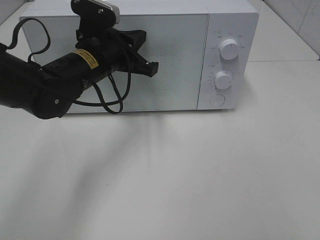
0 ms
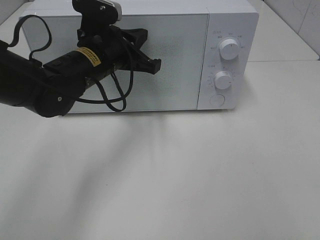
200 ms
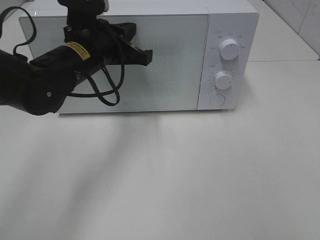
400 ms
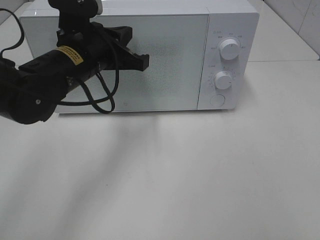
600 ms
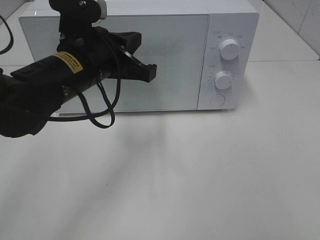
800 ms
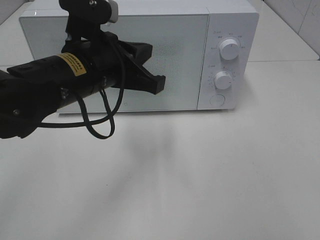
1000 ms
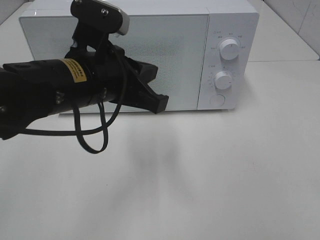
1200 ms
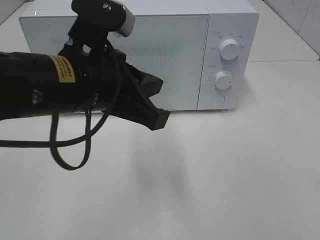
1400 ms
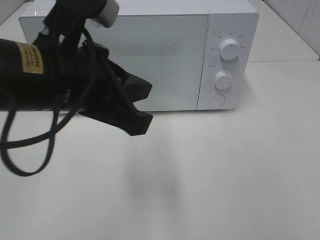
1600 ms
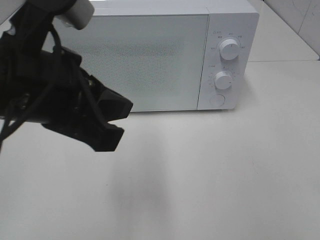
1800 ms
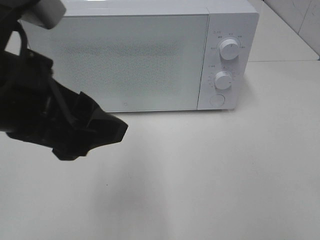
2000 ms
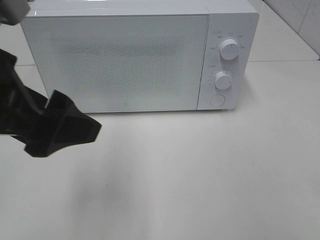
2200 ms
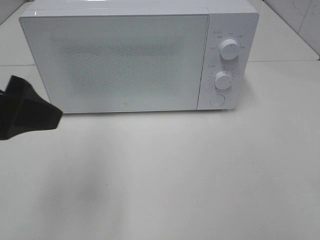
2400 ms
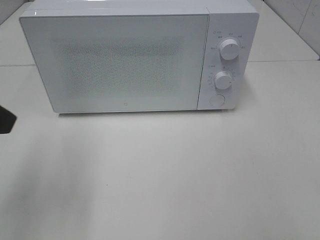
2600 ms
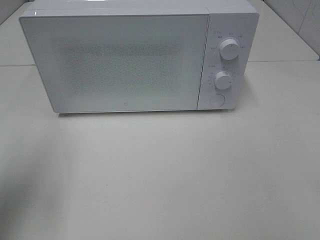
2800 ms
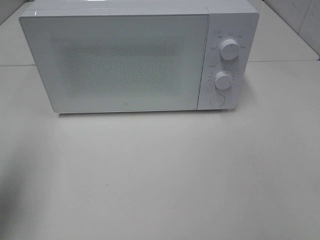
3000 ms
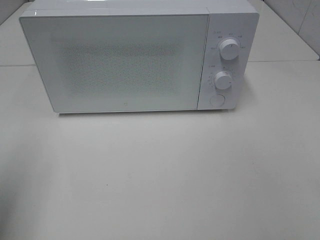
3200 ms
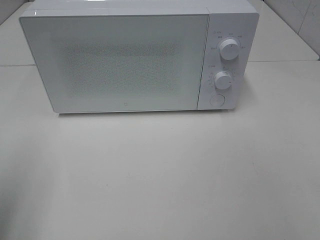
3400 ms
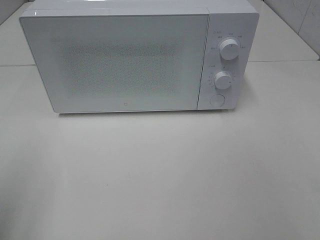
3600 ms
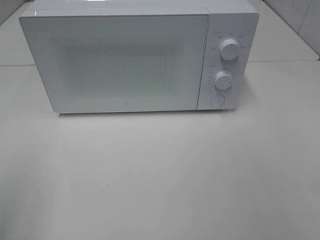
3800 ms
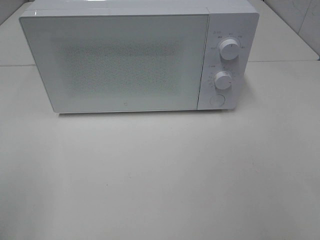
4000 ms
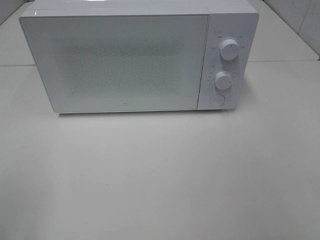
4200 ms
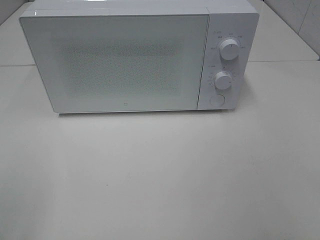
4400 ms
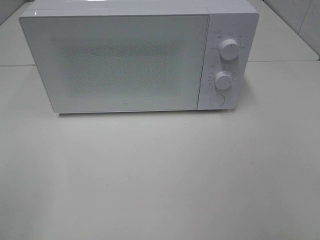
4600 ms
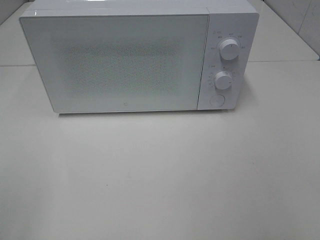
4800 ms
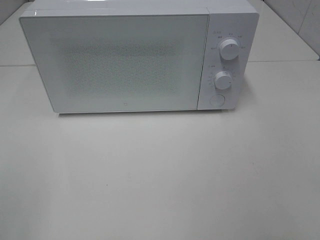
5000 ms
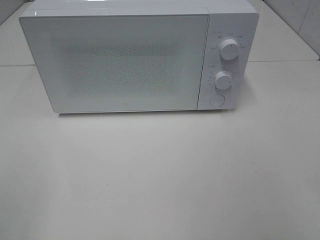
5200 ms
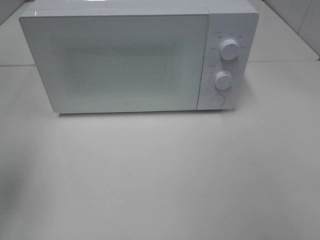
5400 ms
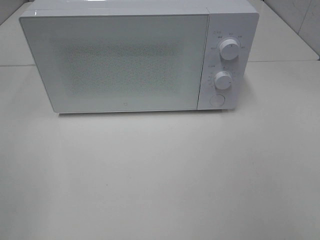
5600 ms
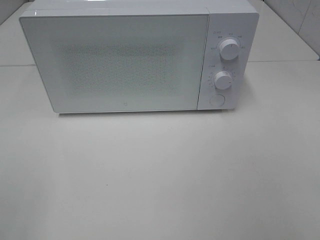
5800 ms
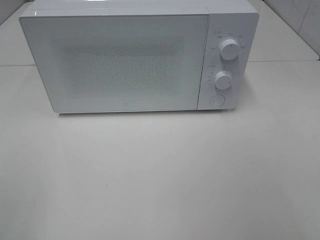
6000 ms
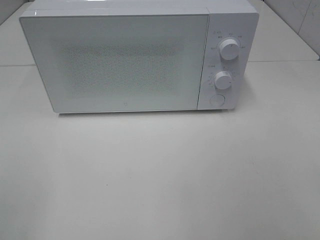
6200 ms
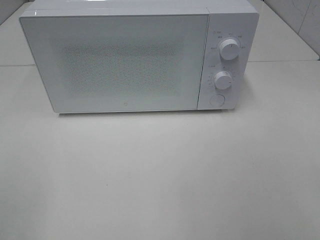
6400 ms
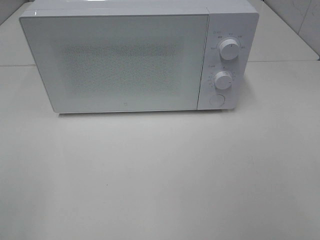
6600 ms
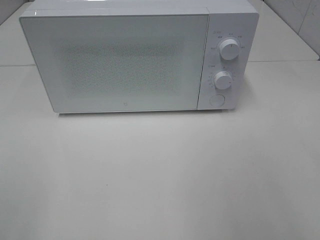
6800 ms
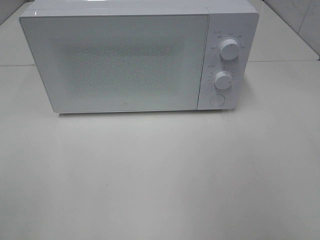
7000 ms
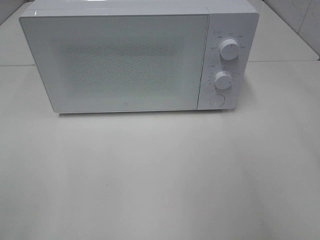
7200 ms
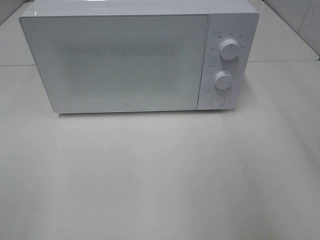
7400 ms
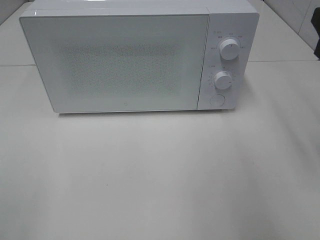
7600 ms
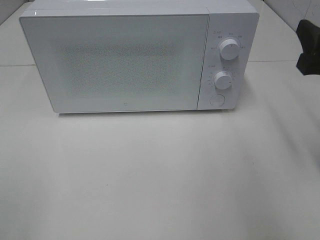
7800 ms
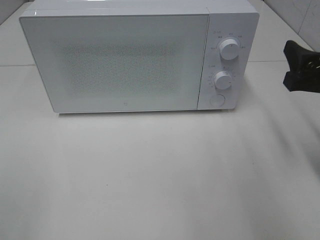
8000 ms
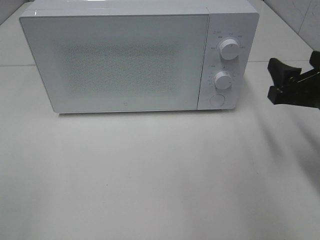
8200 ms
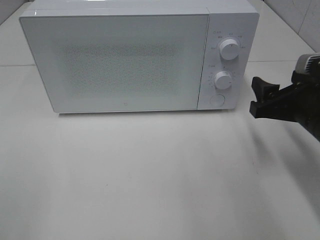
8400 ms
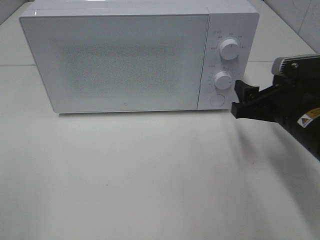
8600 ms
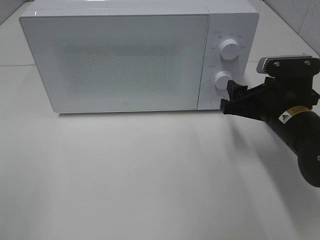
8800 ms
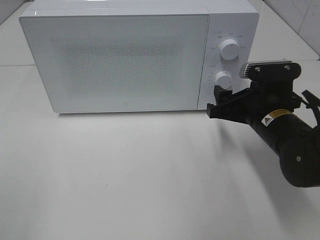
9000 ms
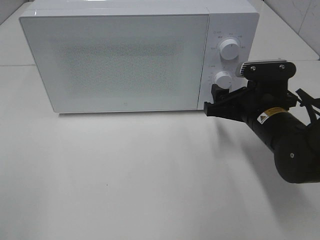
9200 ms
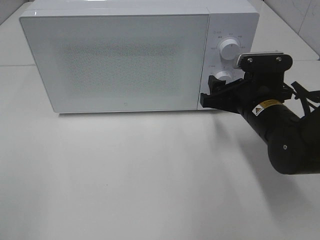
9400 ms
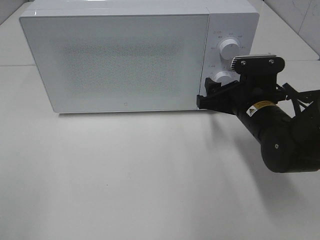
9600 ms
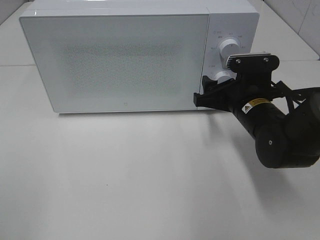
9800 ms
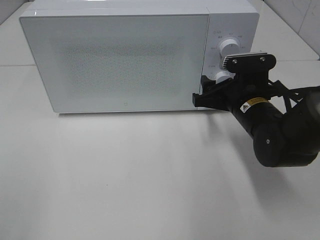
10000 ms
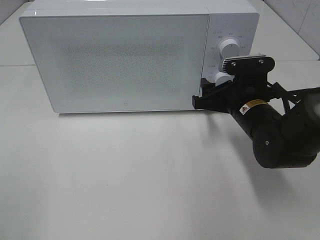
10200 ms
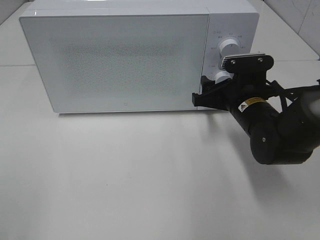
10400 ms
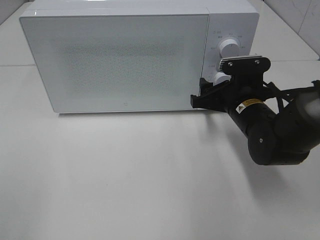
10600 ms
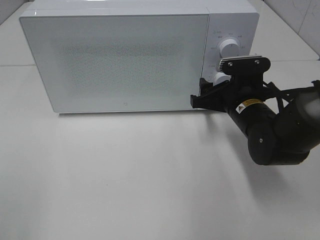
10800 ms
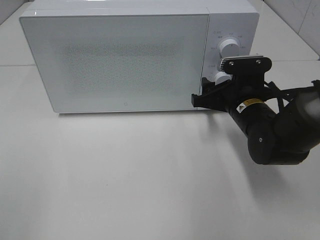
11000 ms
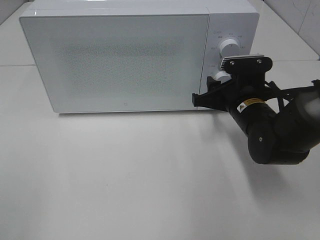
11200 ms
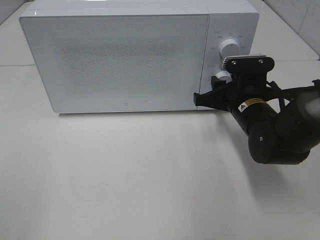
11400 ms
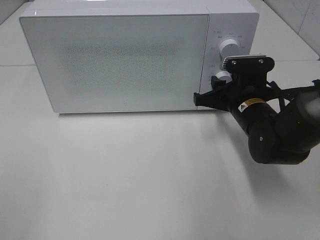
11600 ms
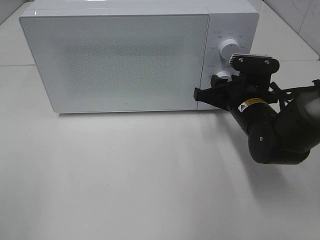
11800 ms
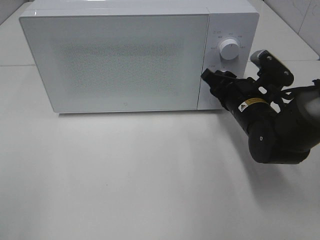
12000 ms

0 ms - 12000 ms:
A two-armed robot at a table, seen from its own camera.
Task of the whole recording: Heat the burger.
0 ms - 1600 ms: The left gripper goes about 20 cm backward and upward.
1600 ms - 3000 ms: The left gripper heads to the left, covering approximately 20 cm, and opens its fingers.
3000 ms - 4400 ms: The left gripper shifts some 15 cm backward.
4400 ms - 6000 ms: The two grippers keep their place.
6000 ms - 7600 ms: The right gripper heads forward, covering approximately 20 cm.
7600 ms - 9000 ms: The right gripper goes some 20 cm downward, to the left and forward.
9000 ms - 10400 ms: There are only small adjustments of the grippers.

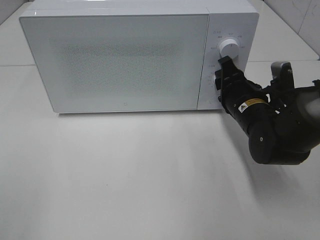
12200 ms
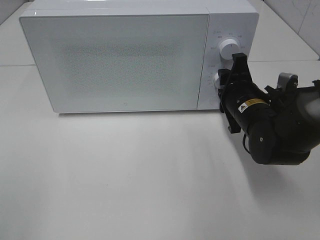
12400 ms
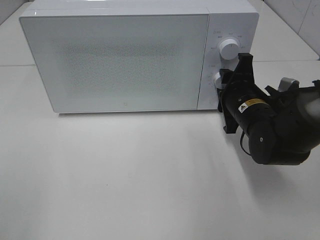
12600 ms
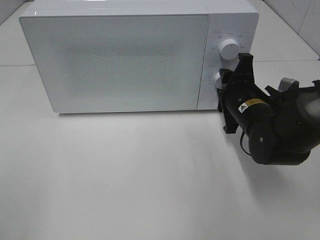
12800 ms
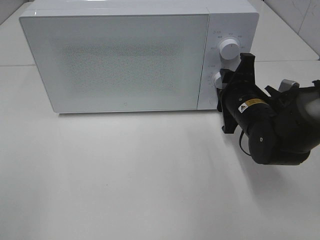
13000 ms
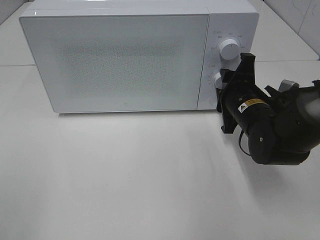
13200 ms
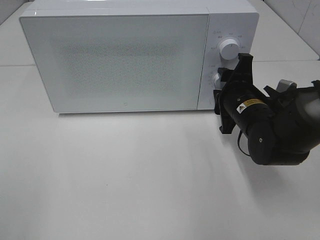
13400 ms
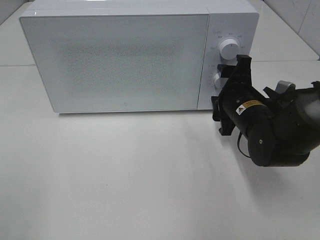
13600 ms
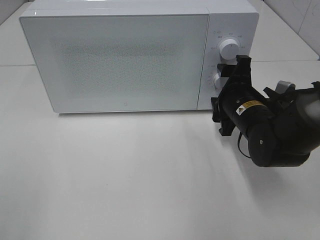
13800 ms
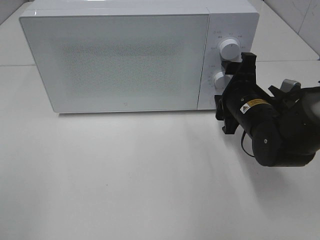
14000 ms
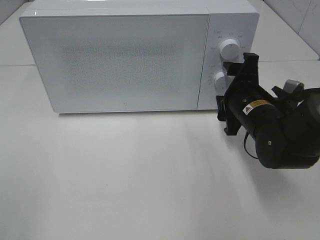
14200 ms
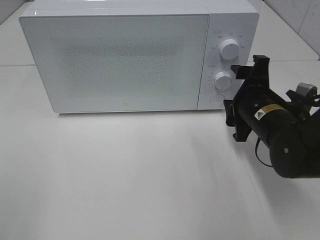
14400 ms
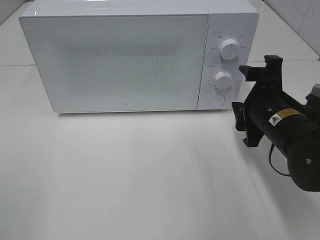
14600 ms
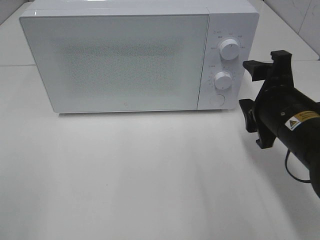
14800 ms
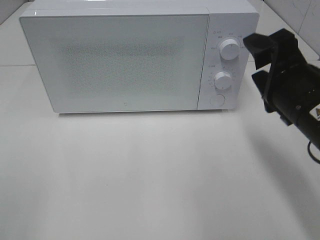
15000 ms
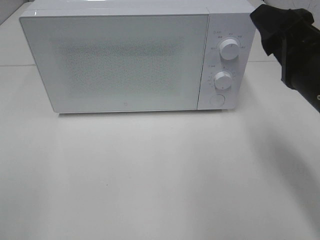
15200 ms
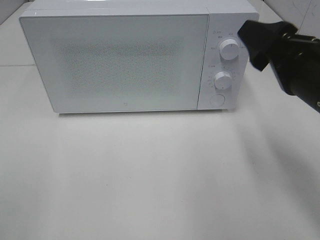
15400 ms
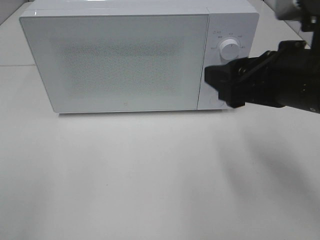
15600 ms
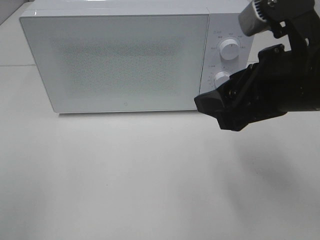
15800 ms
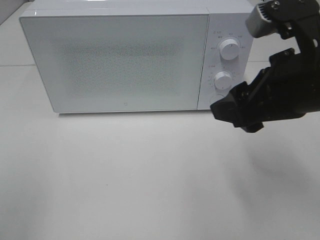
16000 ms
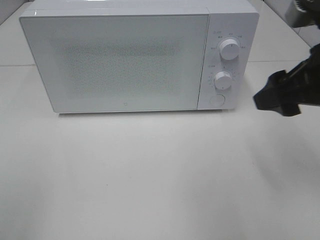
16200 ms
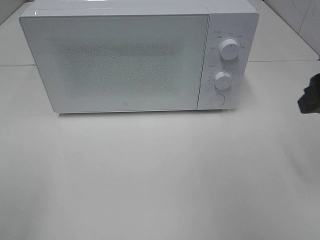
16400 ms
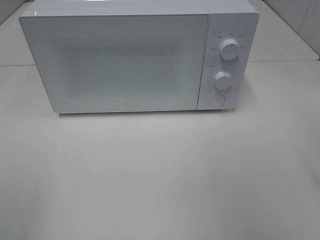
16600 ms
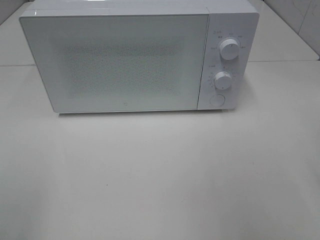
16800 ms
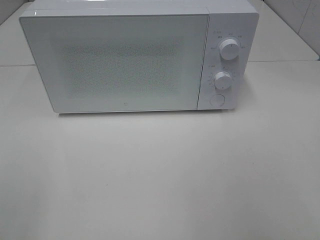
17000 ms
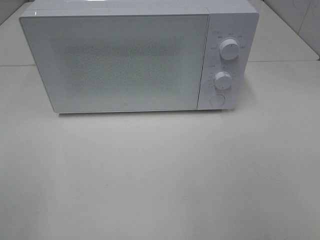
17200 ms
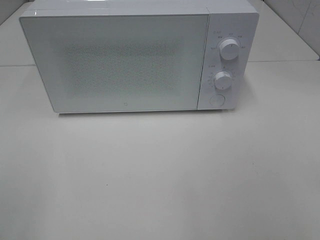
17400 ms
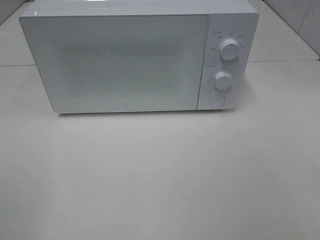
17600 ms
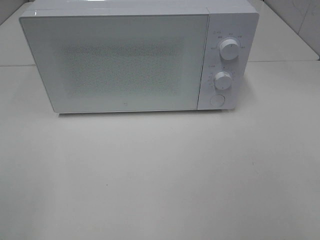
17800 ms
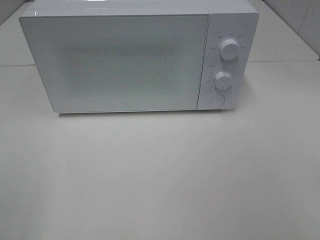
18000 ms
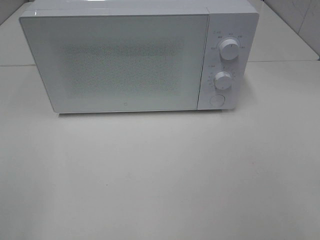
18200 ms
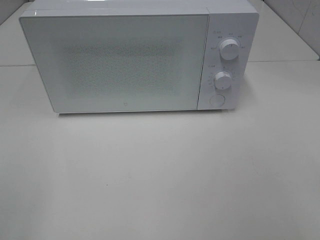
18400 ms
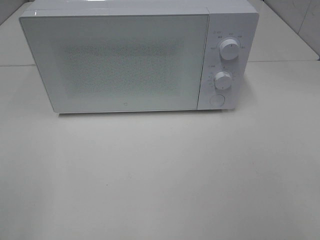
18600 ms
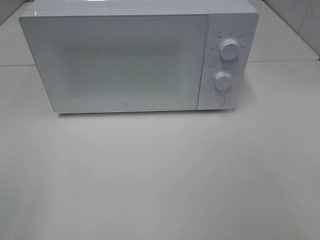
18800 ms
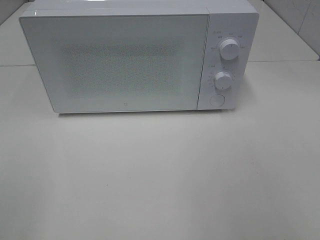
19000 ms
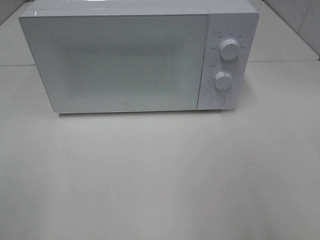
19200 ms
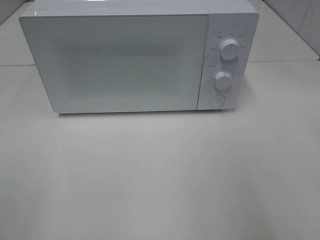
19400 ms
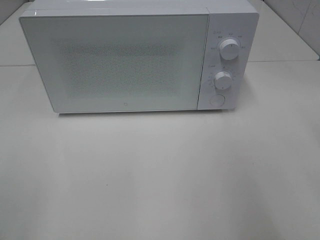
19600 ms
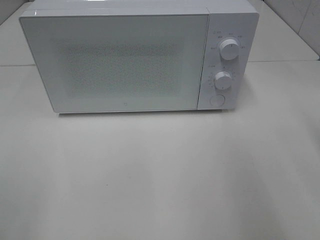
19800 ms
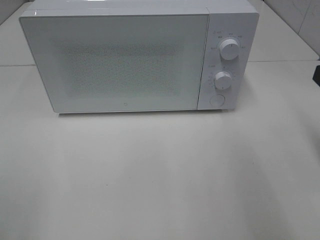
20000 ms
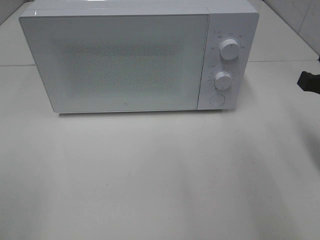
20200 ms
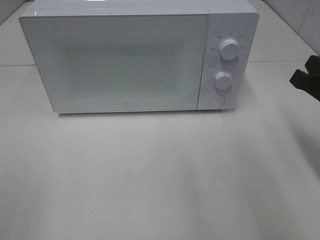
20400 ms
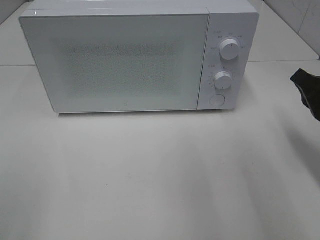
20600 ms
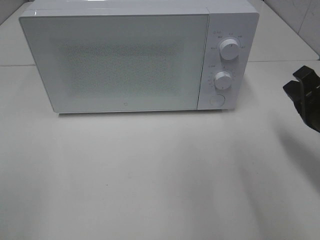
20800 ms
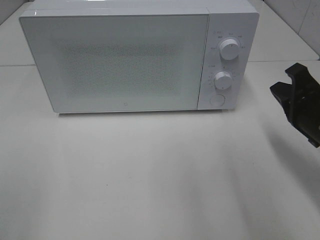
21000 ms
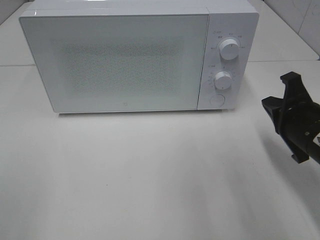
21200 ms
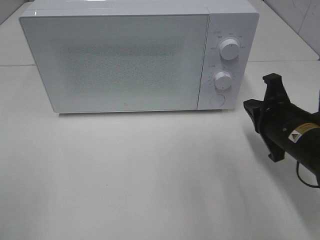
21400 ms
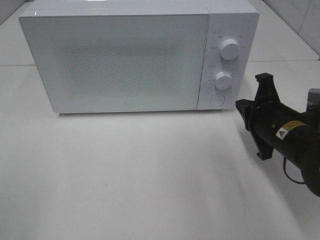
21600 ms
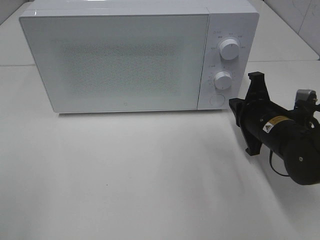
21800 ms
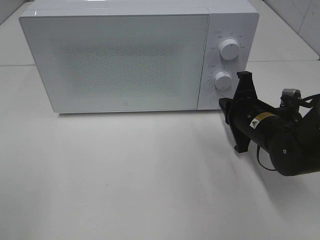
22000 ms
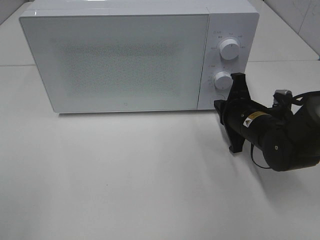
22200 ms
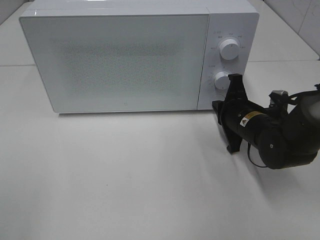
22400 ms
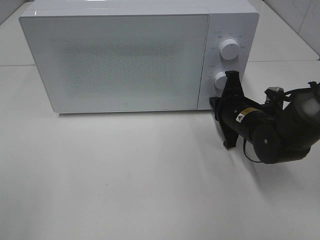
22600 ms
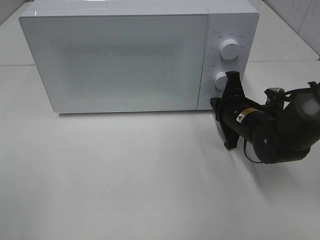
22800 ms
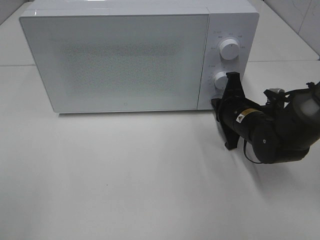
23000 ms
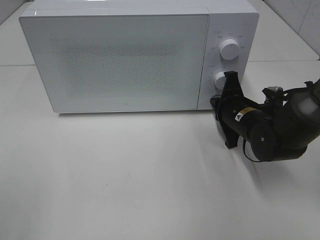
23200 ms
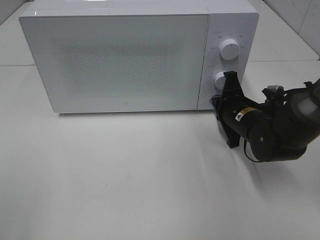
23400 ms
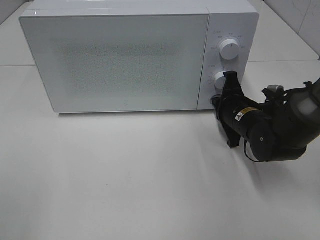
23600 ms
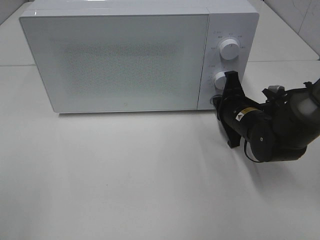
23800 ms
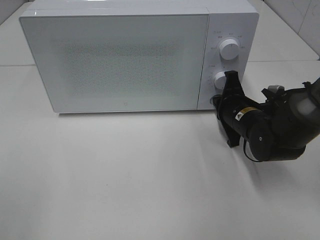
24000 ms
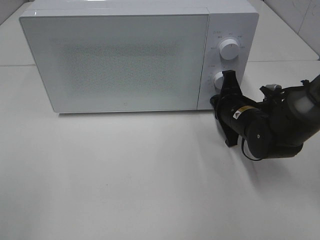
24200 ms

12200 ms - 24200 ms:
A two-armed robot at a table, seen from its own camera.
Task of the whole recording: Heat the burger.
12200 ms - 13800 ms: The right gripper opens.
13800 ms - 15200 ms: The right gripper is displaced upward and backward by about 20 cm.
15200 ms - 16600 ms: The right gripper travels to the right by about 10 cm.
19800 ms - 21200 ms: The right gripper moves downward and forward, approximately 15 cm.
21200 ms - 22600 ms: The right gripper goes some 15 cm forward, downward and to the left.
22600 ms - 24200 ms: The grippers stay close to where they were, moving slightly.
